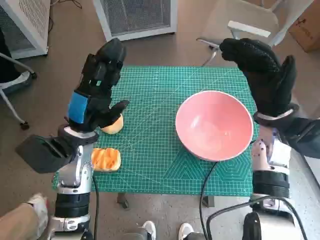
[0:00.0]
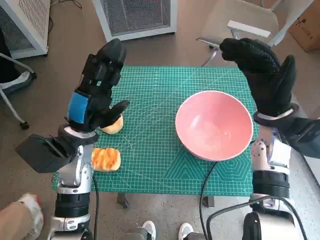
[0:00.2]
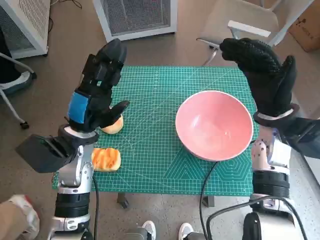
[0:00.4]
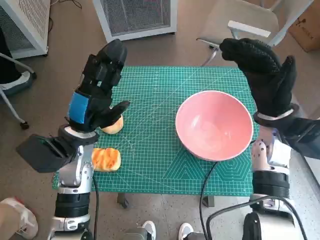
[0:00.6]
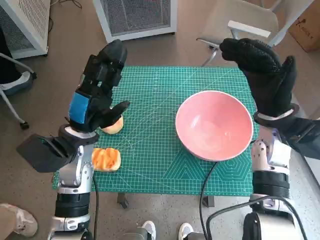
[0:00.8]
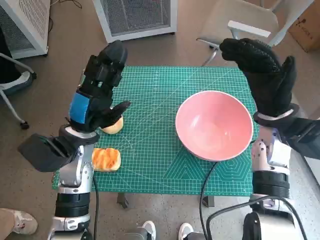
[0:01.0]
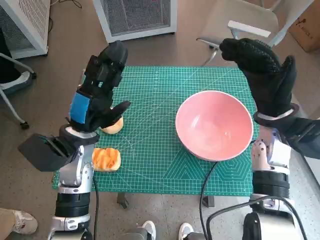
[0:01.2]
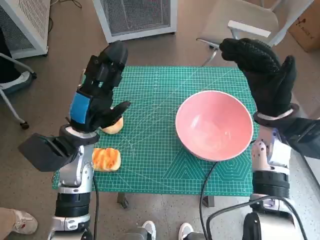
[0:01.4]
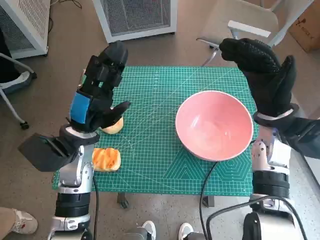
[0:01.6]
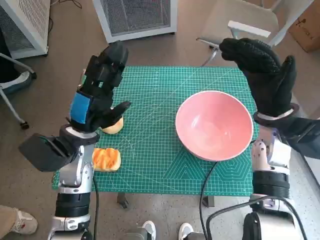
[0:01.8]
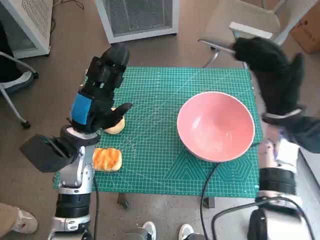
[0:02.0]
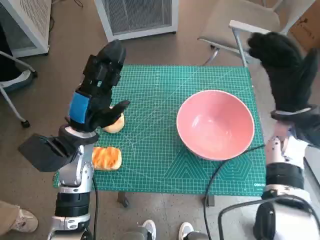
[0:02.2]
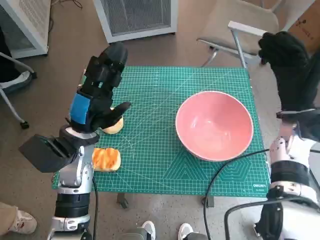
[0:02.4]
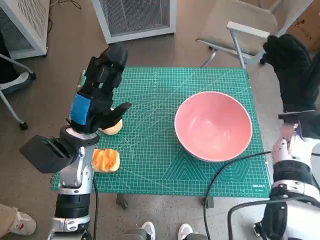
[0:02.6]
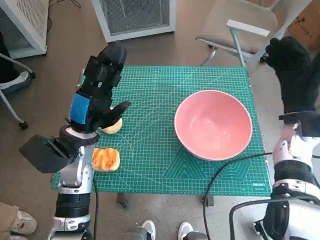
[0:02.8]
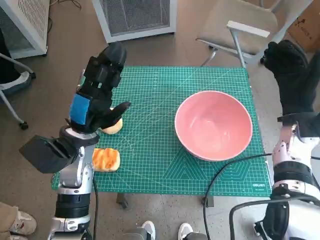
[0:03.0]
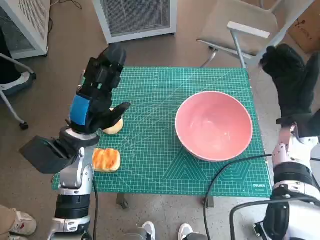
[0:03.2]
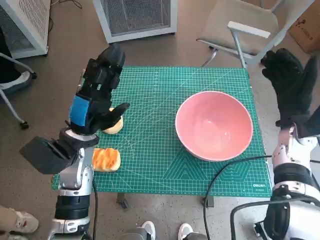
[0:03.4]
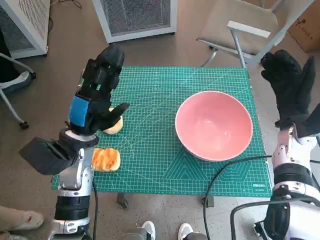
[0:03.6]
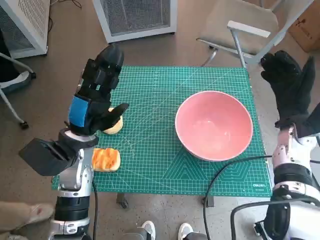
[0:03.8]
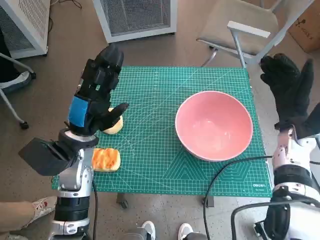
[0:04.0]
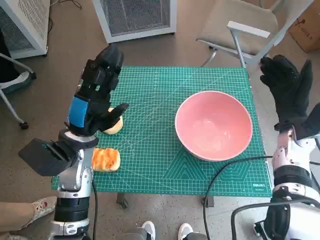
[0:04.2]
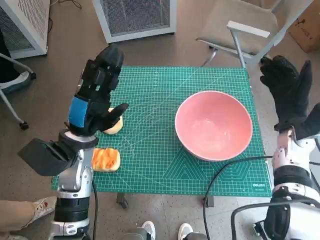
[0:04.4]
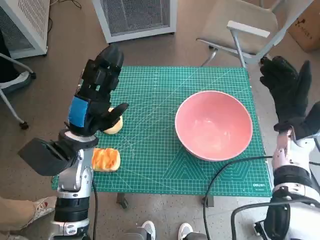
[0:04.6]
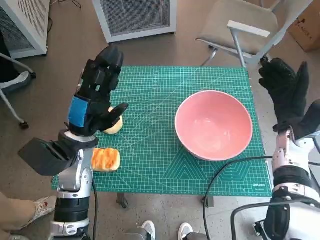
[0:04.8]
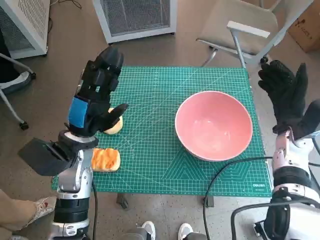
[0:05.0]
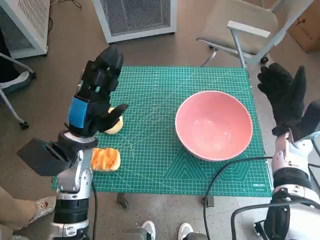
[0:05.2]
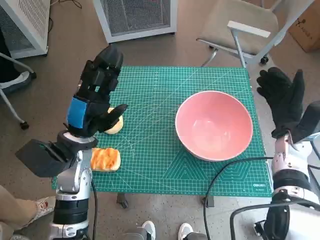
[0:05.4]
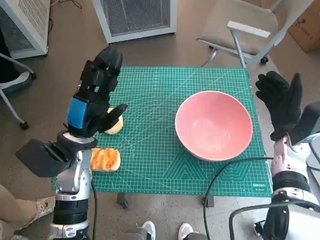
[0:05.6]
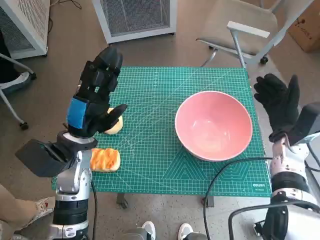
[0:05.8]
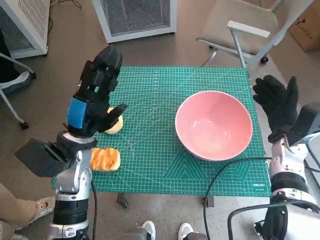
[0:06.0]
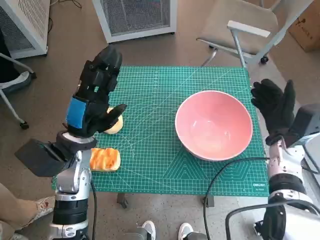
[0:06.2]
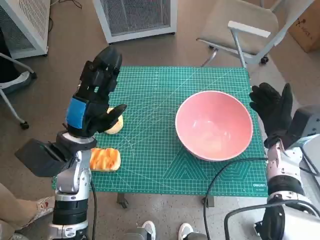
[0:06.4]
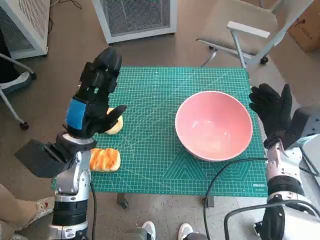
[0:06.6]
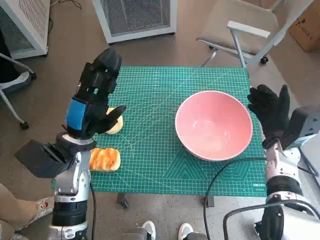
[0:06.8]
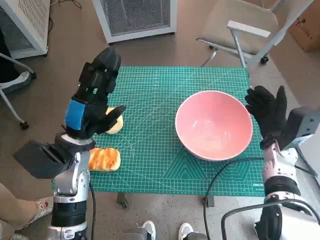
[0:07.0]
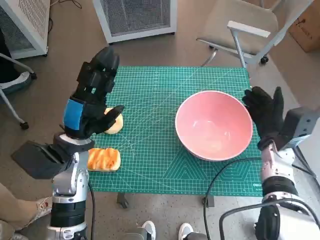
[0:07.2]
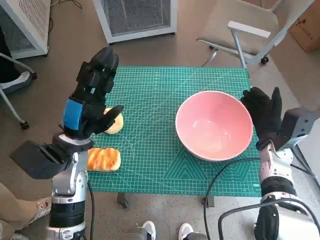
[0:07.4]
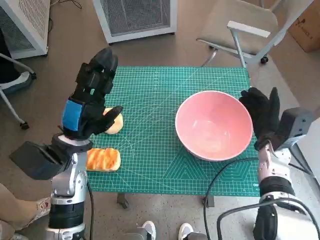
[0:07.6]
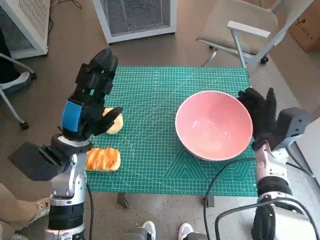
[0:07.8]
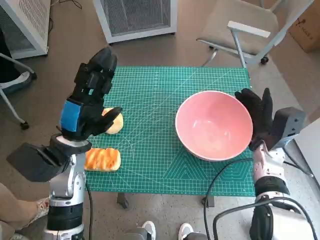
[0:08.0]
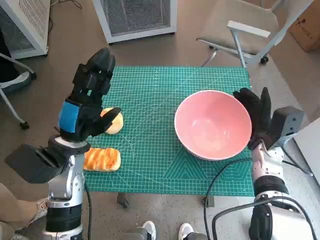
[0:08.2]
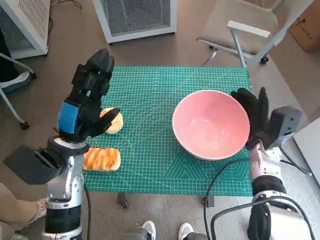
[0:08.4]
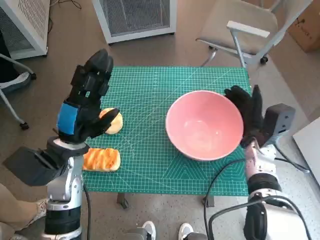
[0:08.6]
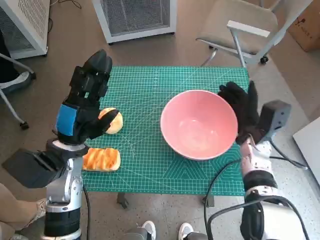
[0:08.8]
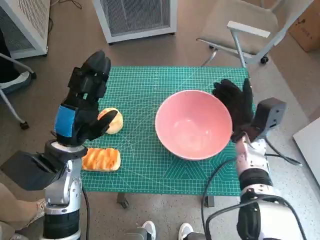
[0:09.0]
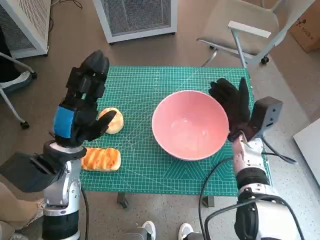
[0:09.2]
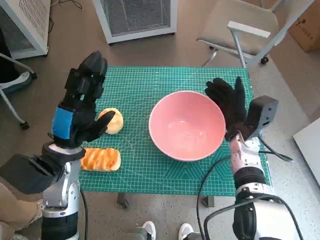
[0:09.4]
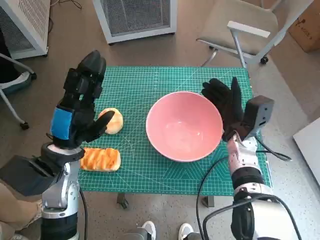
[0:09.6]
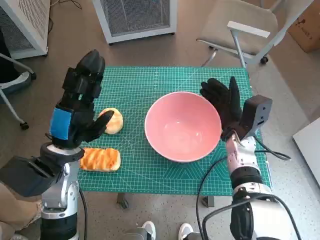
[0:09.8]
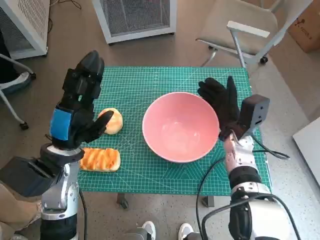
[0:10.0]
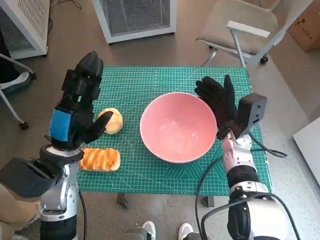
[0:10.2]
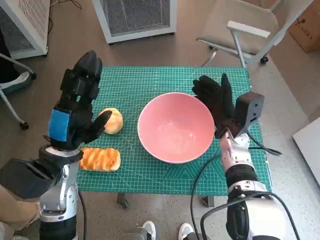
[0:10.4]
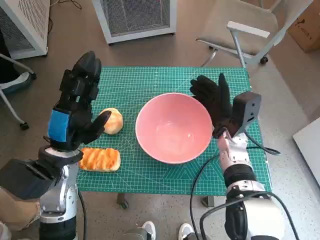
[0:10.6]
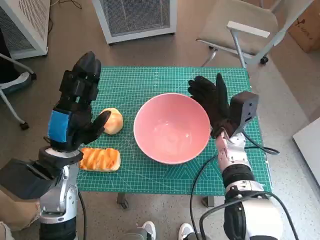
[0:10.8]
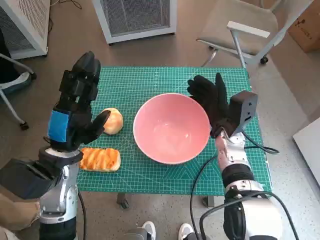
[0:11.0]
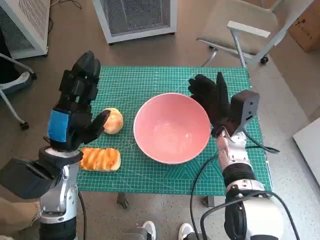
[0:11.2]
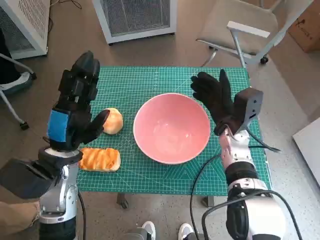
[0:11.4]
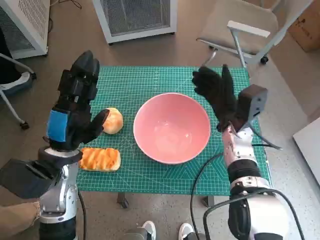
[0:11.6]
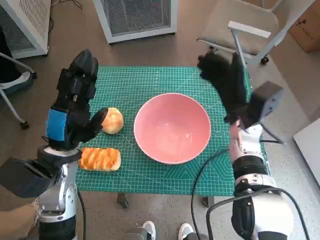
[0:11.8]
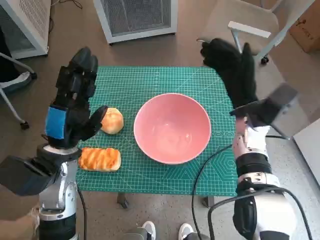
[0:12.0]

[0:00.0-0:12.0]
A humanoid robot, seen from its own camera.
Step, 0:00.0 to 0:11.6: Move the pink bowl to the center of table with right hand.
0:01.6 to 0:03.0: The right hand heads to the right, covering approximately 5 cm.
0:03.0 to 0:04.4: There are only small adjustments of the hands.
0:04.4 to 0:07.6: The hands stay close to where they were, moving slightly.
0:07.6 to 0:09.0: The right hand ends up roughly 5 cm from where it was.
0:10.4 to 0:12.0: The right hand goes approximately 5 cm upward.

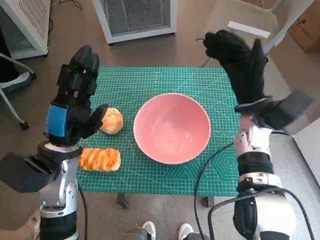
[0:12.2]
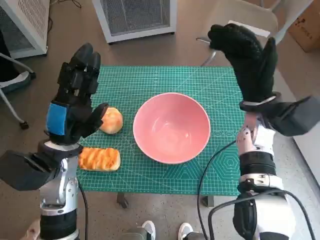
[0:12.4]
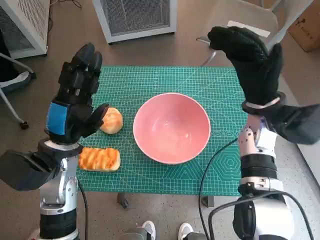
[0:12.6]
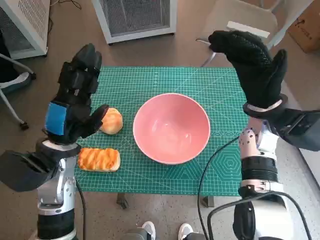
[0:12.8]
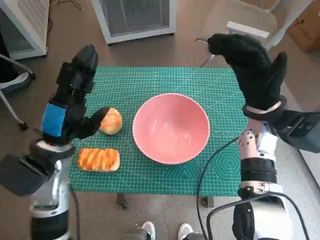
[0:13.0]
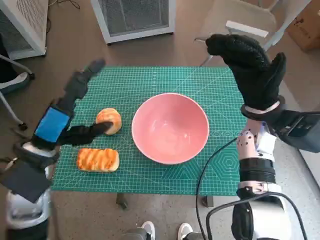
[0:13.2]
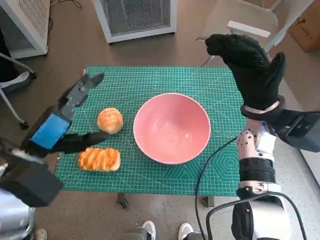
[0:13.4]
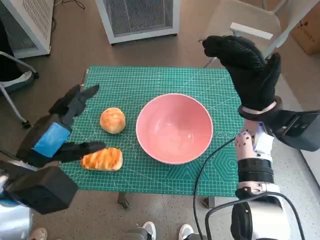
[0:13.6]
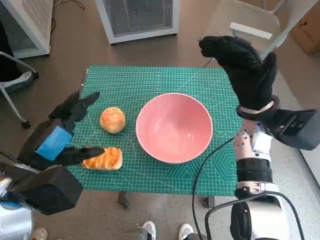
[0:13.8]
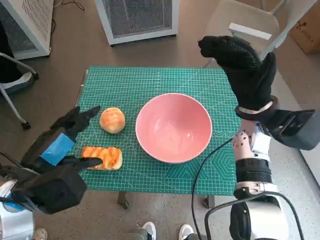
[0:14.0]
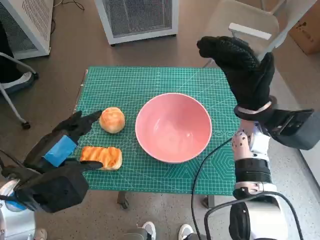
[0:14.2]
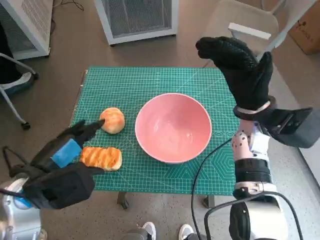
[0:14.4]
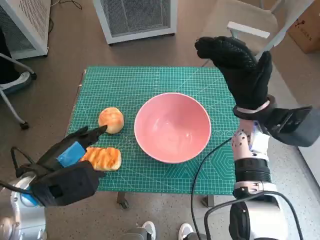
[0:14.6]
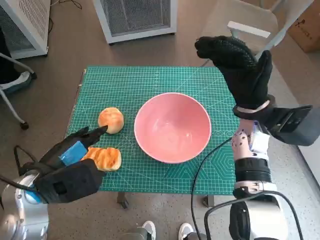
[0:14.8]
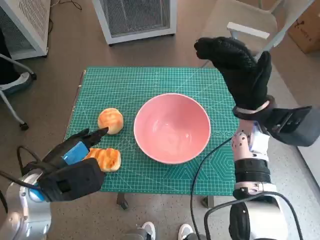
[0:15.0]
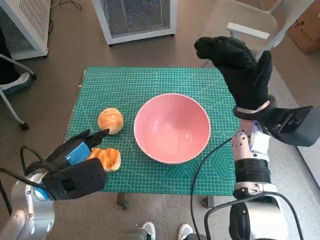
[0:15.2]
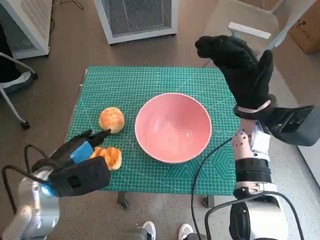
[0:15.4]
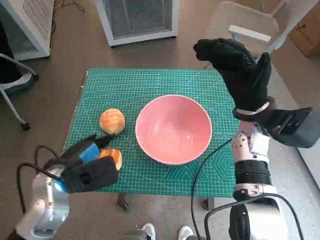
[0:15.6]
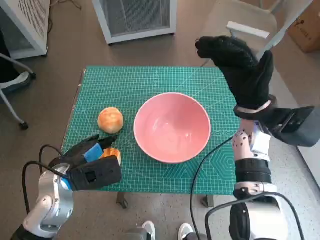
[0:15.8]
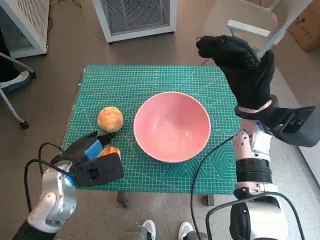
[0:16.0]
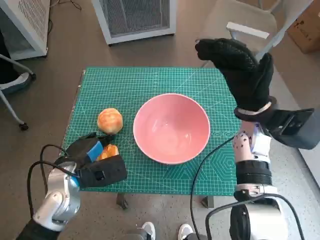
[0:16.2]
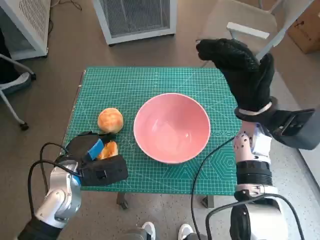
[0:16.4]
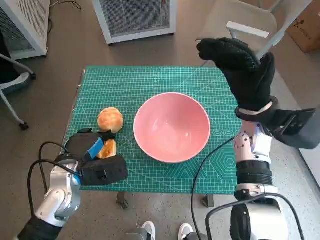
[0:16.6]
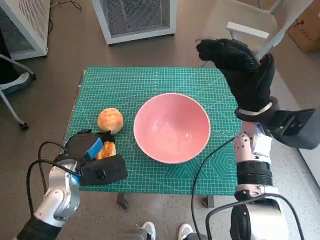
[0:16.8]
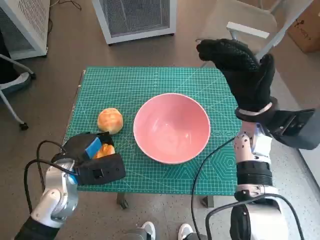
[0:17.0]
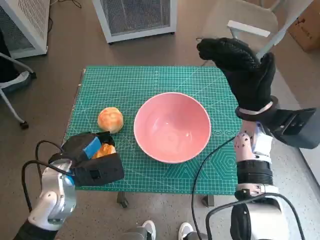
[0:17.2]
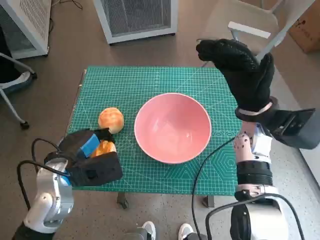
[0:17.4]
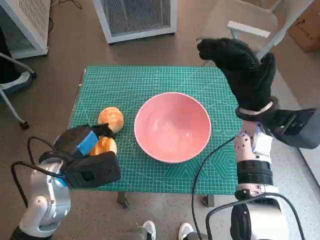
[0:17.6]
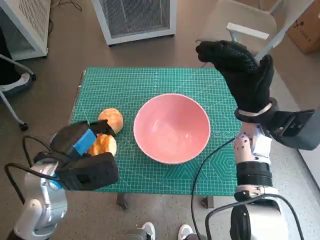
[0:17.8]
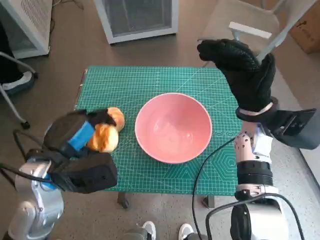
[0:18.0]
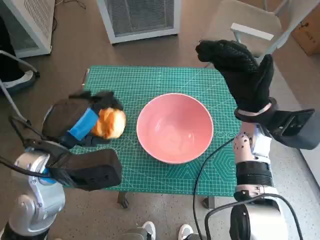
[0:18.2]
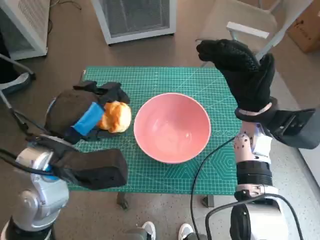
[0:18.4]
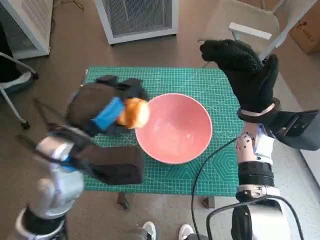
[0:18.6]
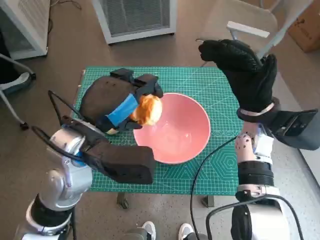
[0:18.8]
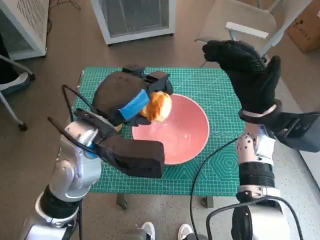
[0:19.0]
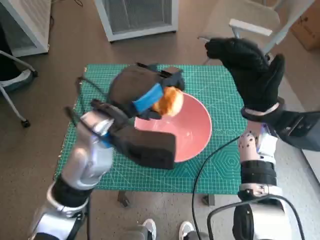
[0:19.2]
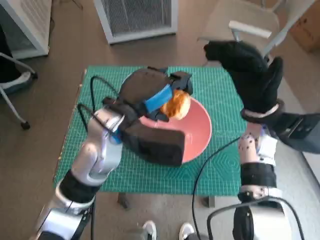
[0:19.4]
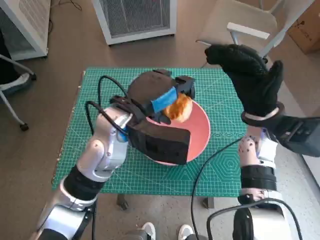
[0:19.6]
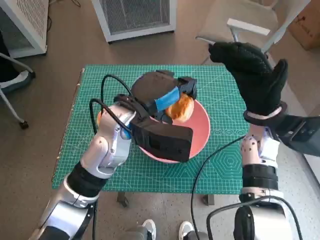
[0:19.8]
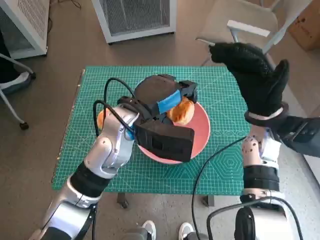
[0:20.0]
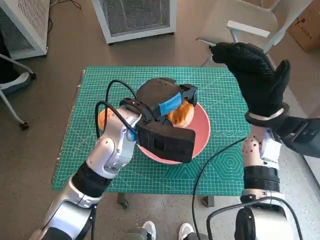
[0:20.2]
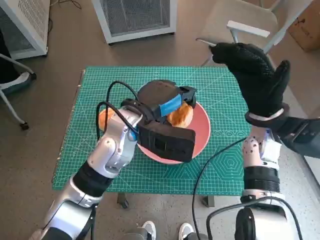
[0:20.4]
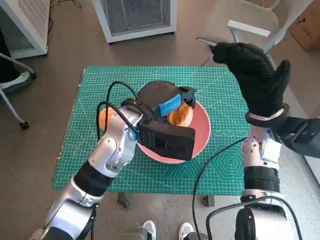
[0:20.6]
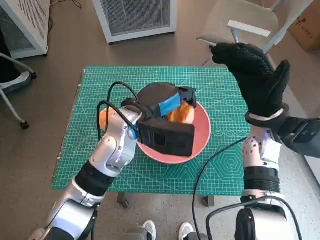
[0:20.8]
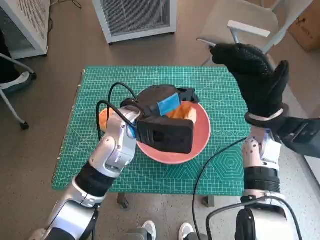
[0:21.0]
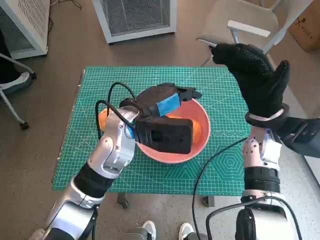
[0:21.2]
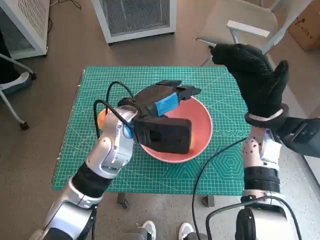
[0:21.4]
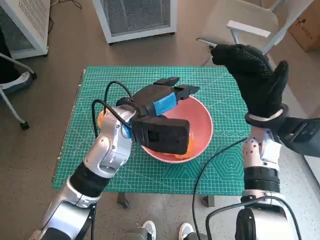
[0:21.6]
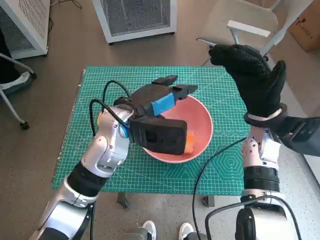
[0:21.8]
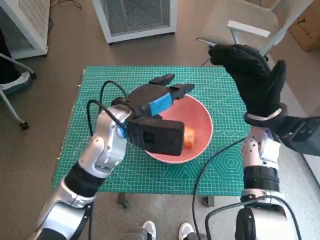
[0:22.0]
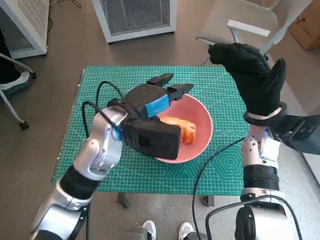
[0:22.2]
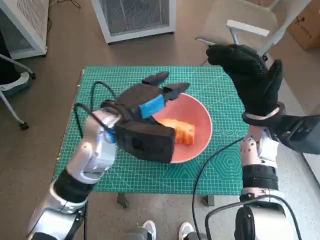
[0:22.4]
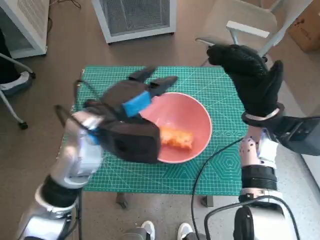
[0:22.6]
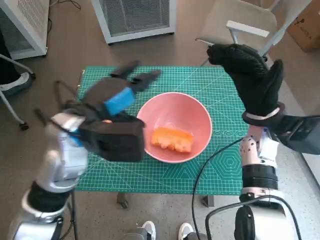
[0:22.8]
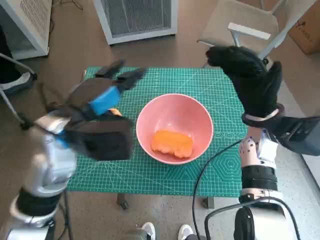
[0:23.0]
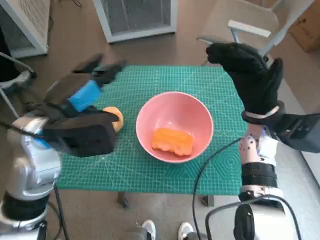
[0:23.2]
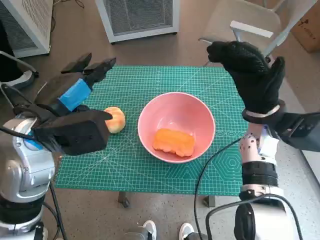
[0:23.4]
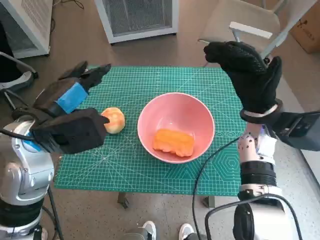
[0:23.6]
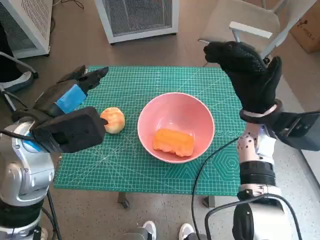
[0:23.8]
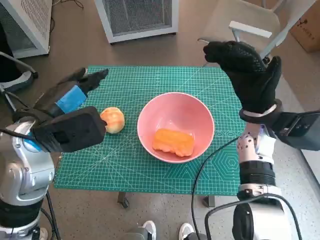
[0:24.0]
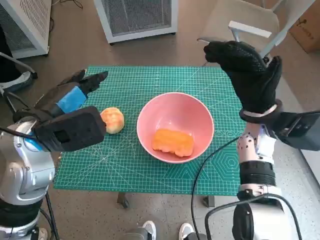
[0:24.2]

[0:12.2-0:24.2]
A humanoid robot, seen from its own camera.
Step, 0:12.2 to 0:16.6: Grasp the long bread with left hand.
Step, 0:16.8 to 0:21.8: Place the long bread in pink bowl with left hand.
0:12.2 to 0:13.8: The left hand goes roughly 5 cm backward.
0:15.2 to 0:16.6: The left hand shifts about 5 cm downward.
0:16.6 to 0:18.2: The left hand is displaced upward by roughly 10 cm.
0:18.2 to 0:19.8: The left hand heads to the right and forward, covering about 15 cm.
0:19.8 to 0:21.2: The hands stay close to where they were, moving slightly.
0:21.2 to 0:22.6: The left hand ends up approximately 5 cm from where it was.
0:22.6 to 0:24.2: The left hand shifts some 10 cm to the left.
